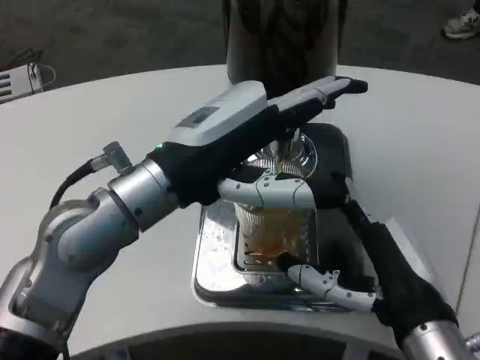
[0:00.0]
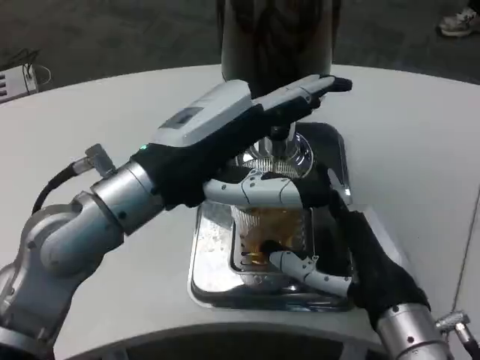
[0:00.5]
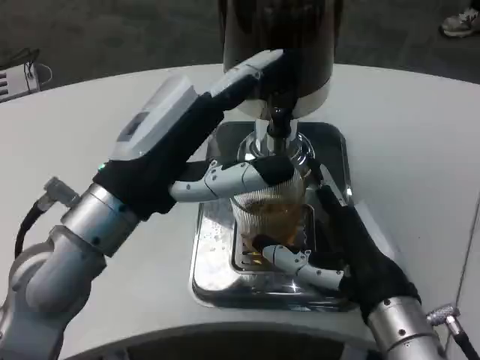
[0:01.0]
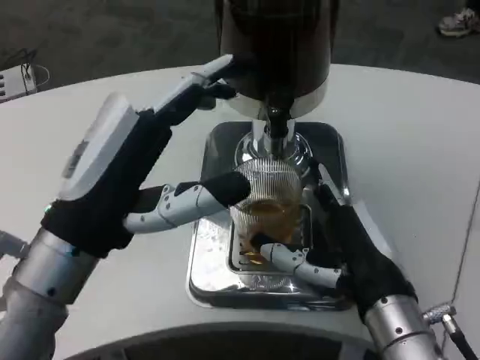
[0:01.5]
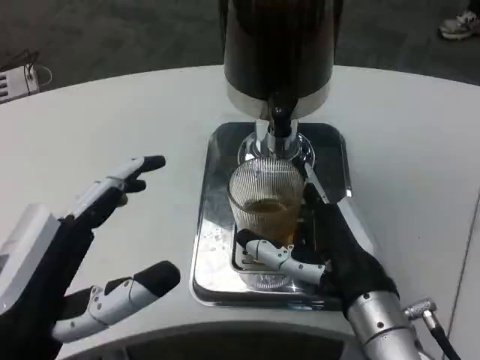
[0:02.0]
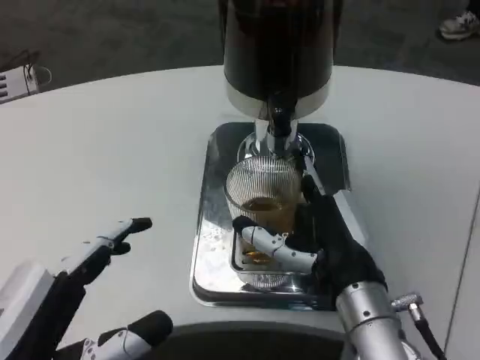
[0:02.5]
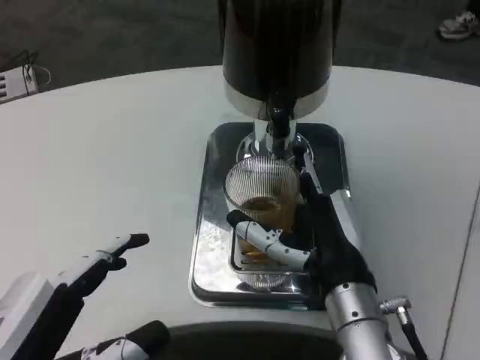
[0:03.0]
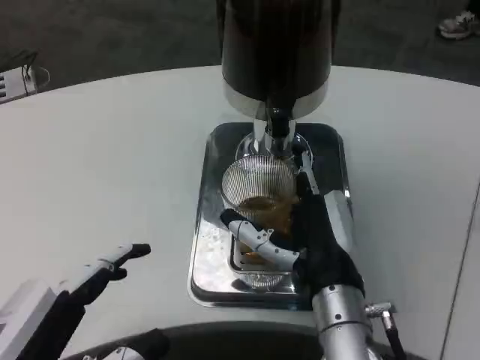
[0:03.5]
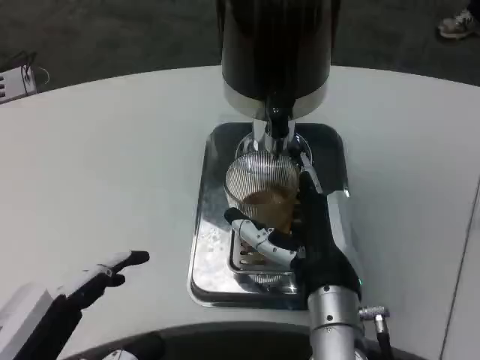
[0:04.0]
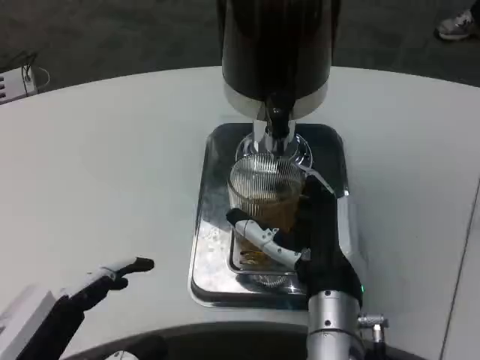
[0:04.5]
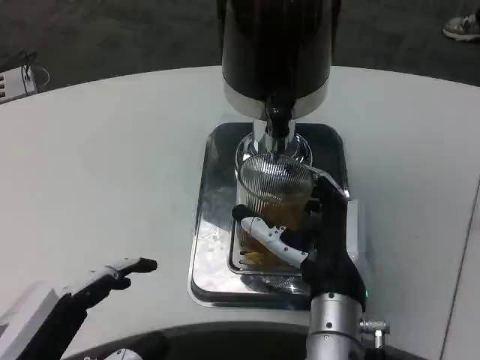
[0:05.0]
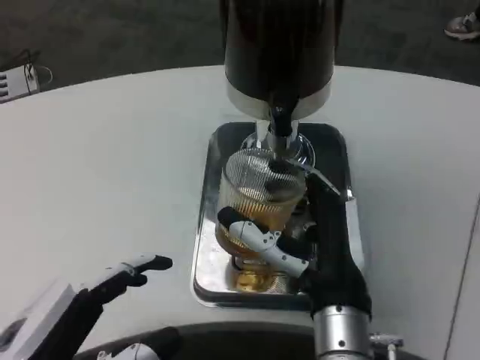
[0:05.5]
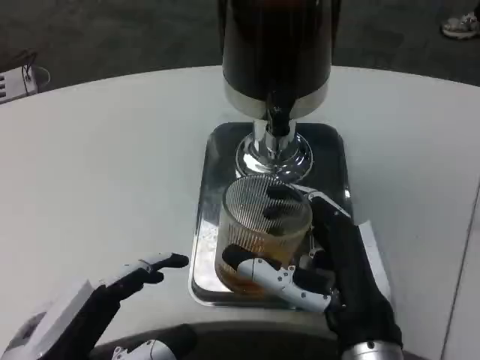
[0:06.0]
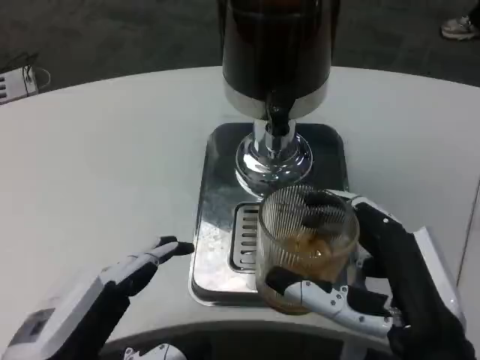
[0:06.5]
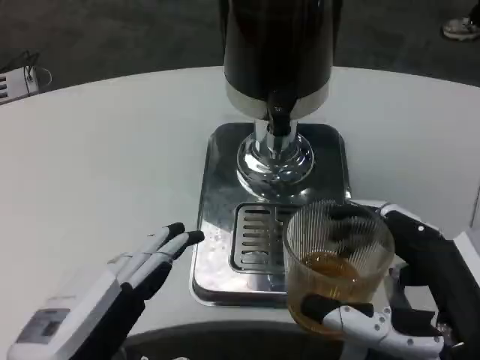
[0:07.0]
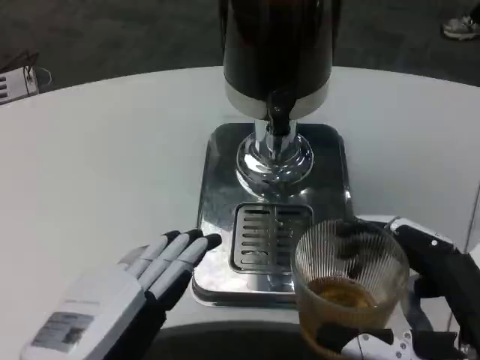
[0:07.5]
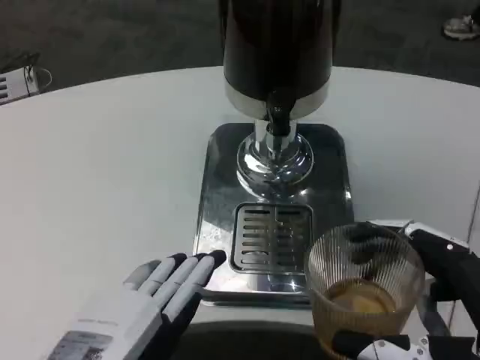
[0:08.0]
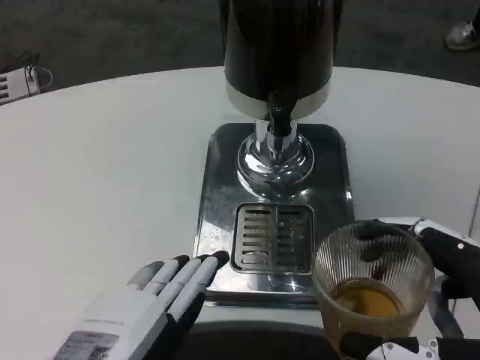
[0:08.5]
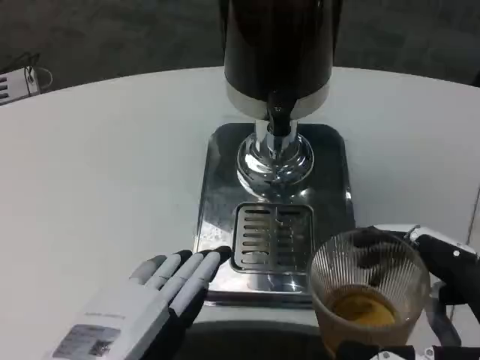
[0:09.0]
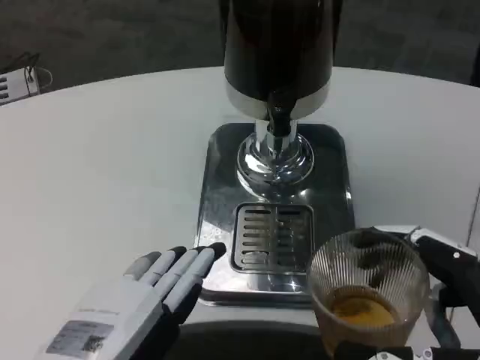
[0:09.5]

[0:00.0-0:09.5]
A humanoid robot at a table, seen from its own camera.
Task of the whole recording: Grasp the cup under the faucet to collect the drink, then remove the cup.
0:00.0 to 0:02.0: The left hand moves backward, downward and to the left, approximately 20 cm; the right hand ends up approximately 5 cm from where it was.
0:02.0 to 0:04.0: The right hand moves roughly 5 cm.
0:04.0 to 0:05.5: There are only small adjustments of the hands.
0:05.5 to 0:07.5: The right hand travels to the right and backward by some 15 cm.
0:07.5 to 0:09.5: There are only small adjustments of the hands.

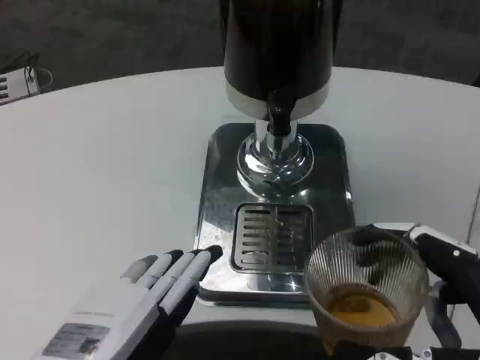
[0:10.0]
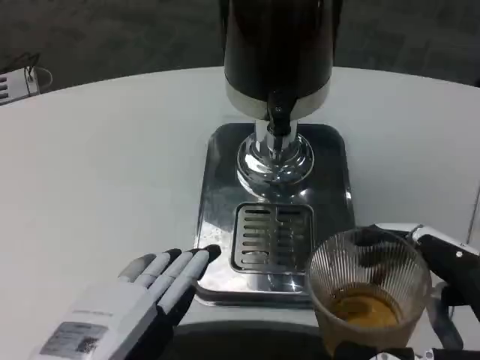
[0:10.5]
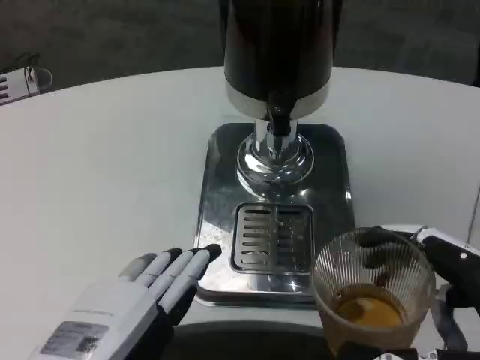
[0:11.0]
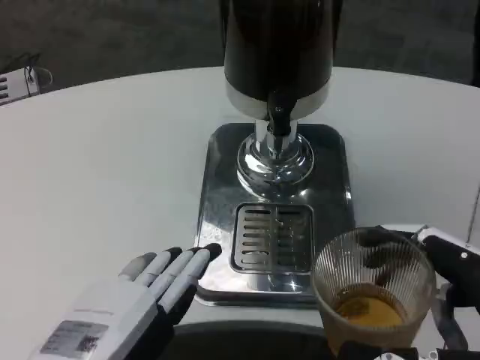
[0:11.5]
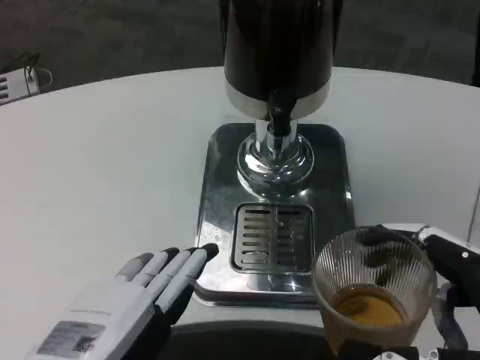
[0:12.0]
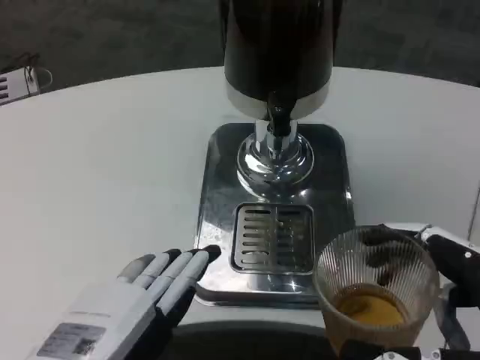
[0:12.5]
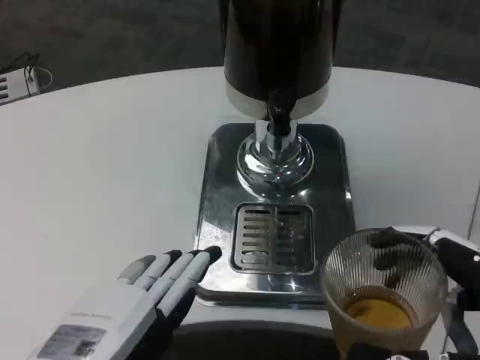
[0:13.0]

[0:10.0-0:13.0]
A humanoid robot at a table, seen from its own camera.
Task of the whole recording: Grasp the cup under the faucet to collect the drink, then remove the cup.
0:10.0 to 0:13.0: The two hands keep their place.

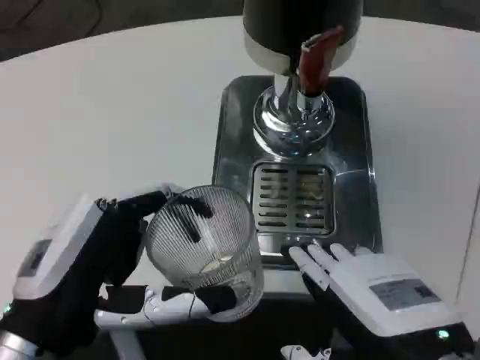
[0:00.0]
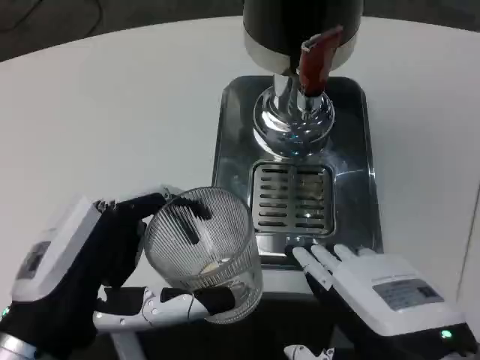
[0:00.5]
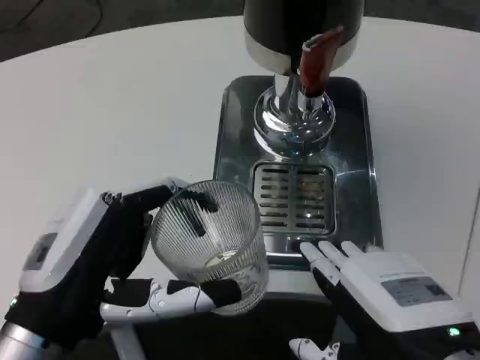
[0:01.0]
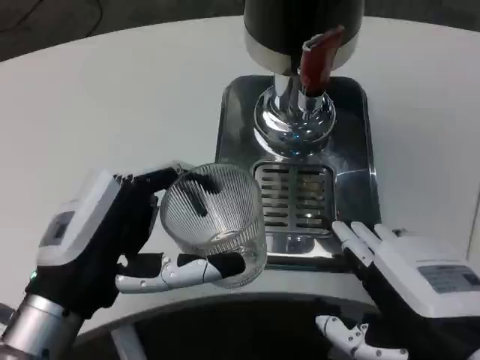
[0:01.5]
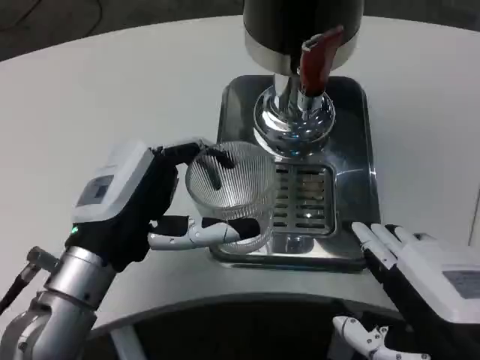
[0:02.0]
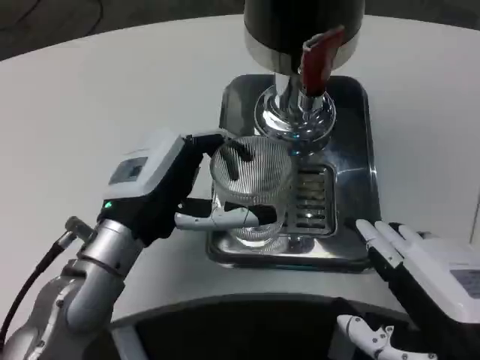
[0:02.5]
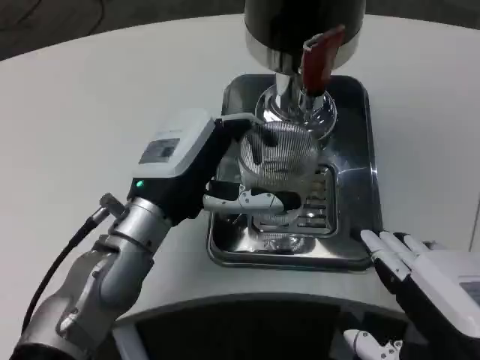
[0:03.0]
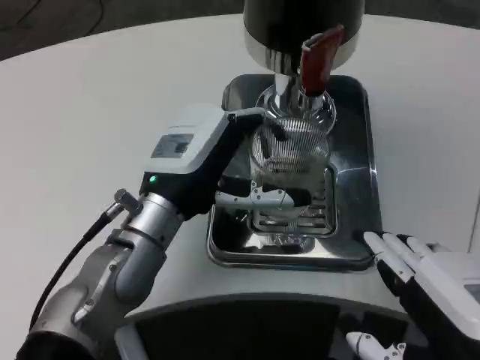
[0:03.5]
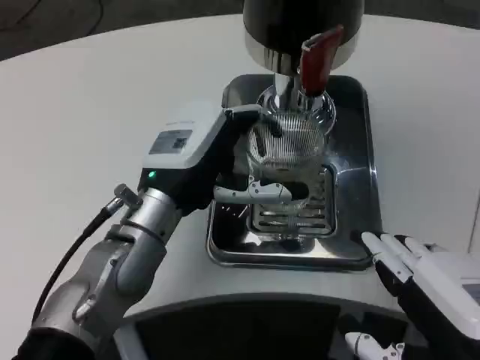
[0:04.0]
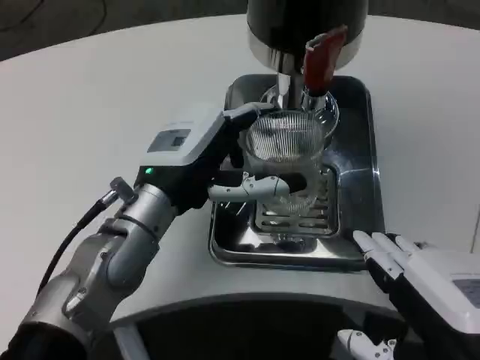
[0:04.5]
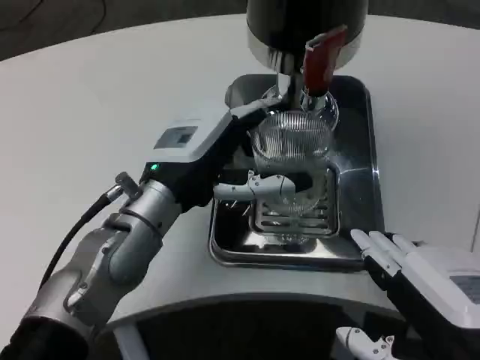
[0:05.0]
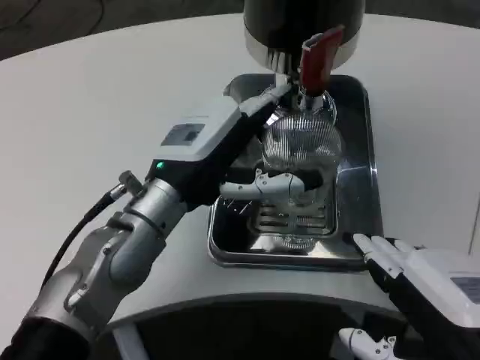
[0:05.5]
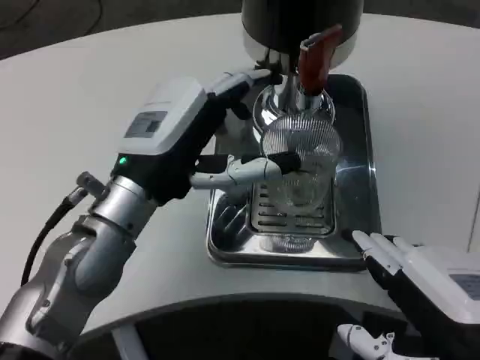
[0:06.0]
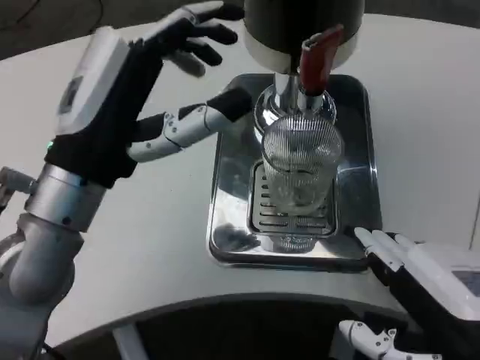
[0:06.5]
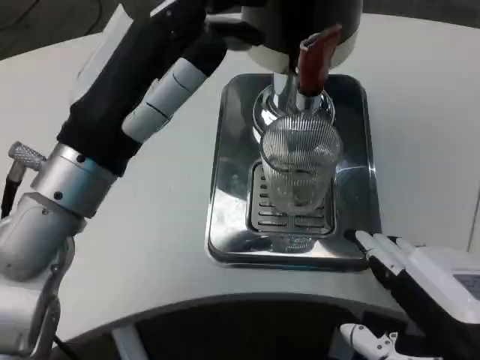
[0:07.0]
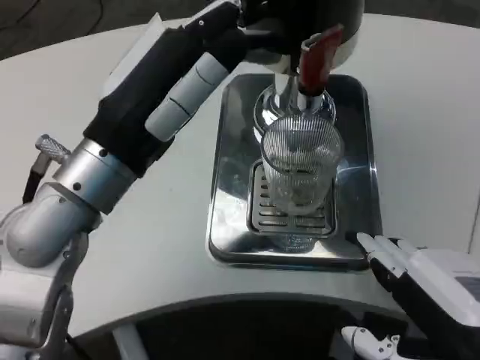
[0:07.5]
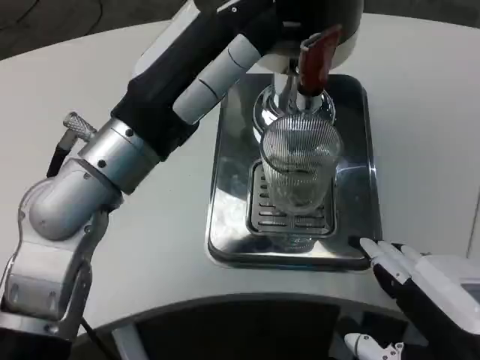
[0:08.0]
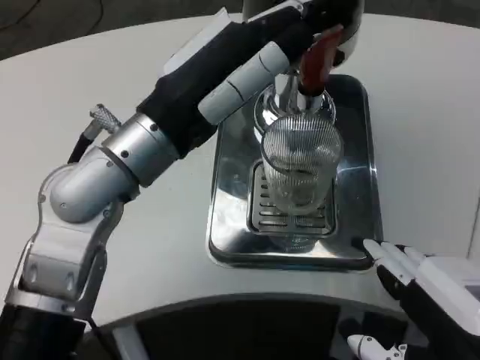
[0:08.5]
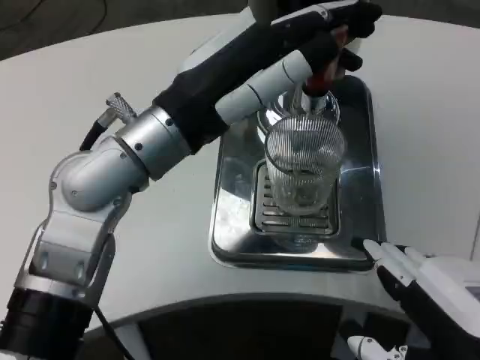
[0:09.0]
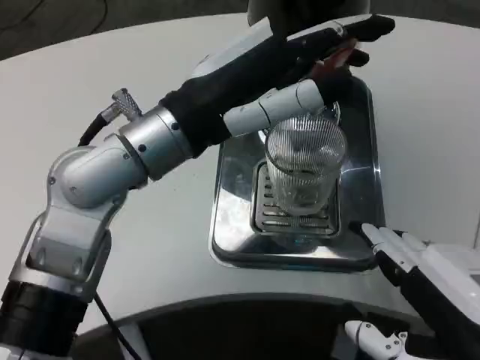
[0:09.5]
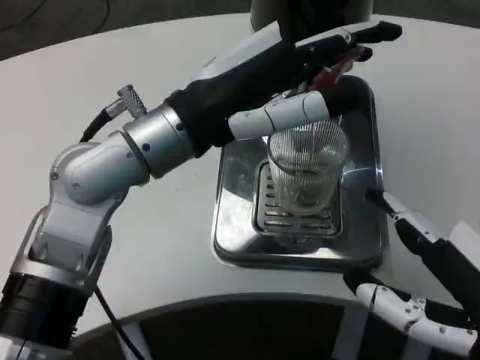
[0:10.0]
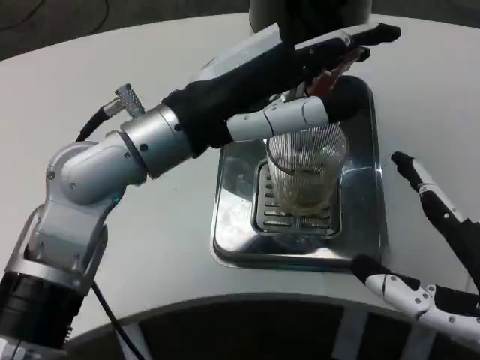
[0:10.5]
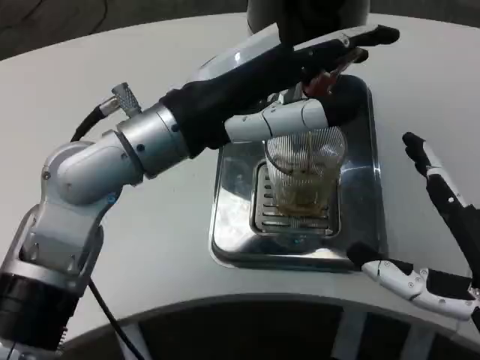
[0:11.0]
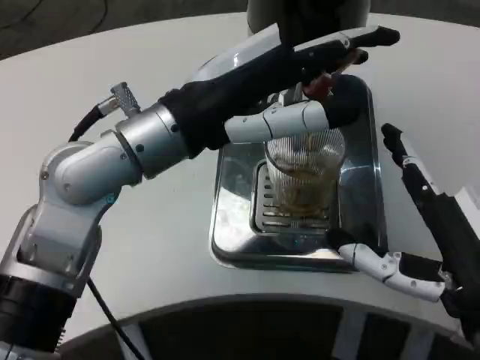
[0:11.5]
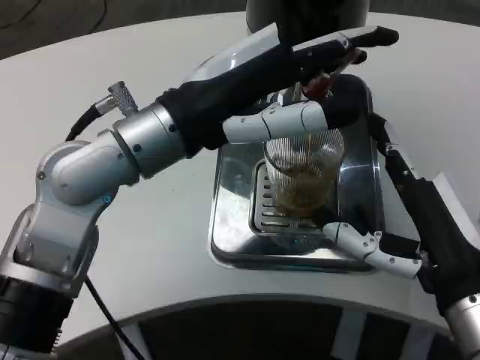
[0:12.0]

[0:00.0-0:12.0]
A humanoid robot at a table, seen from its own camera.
Task of the whole recording: Grasp the cup under the faucet to collect the drink, then remove the cup.
0:00.0 to 0:02.0: The left hand heads forward, covering some 10 cm.
0:02.0 to 0:04.0: The left hand heads forward, covering roughly 5 cm.
0:06.0 to 0:08.0: The left hand moves upward, approximately 5 cm.
0:10.0 to 0:12.0: The right hand moves forward, roughly 10 cm.

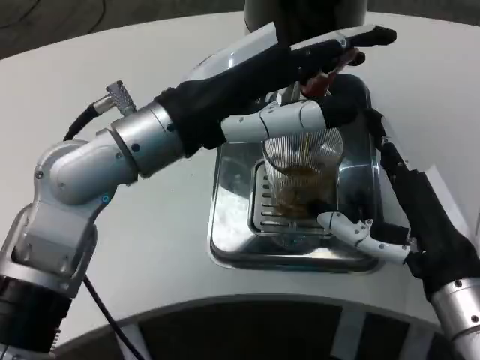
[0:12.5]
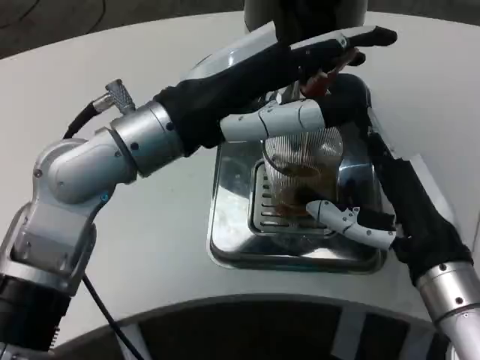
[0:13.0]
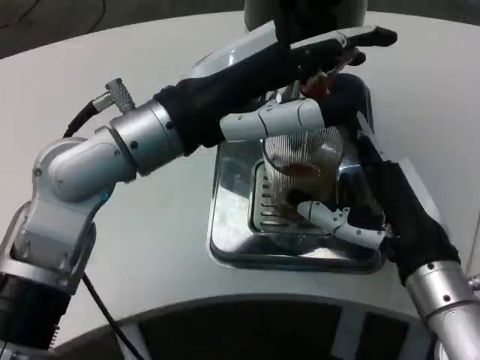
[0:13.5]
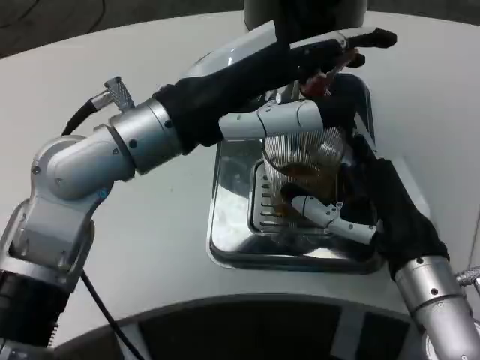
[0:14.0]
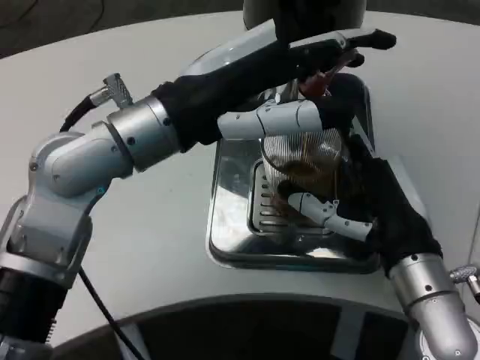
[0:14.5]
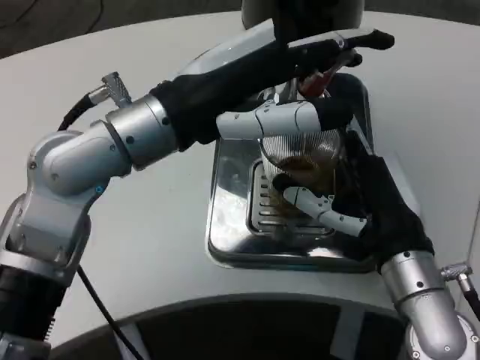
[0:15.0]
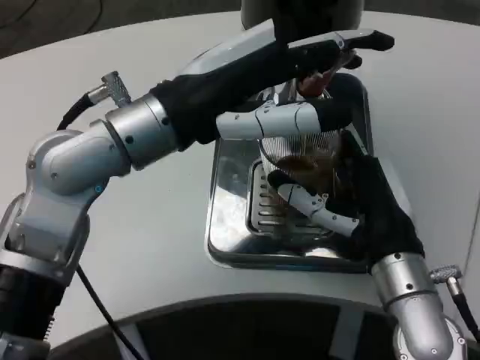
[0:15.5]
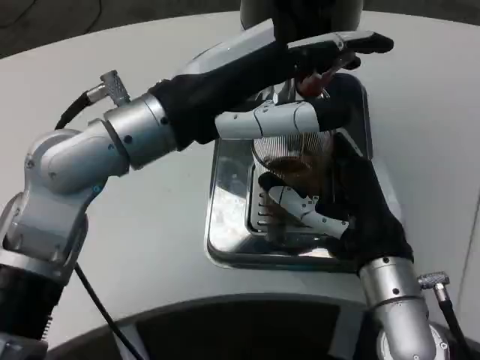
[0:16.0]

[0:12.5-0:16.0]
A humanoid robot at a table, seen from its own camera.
Task of the whole recording: Grasp the cup under the faucet to collect the drink, then remove the cup.
0:14.5 to 0:16.0: The hands move only a little.
